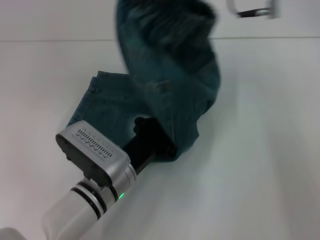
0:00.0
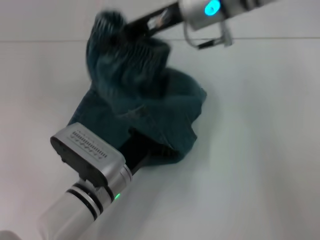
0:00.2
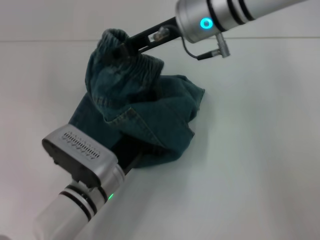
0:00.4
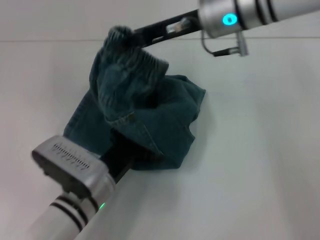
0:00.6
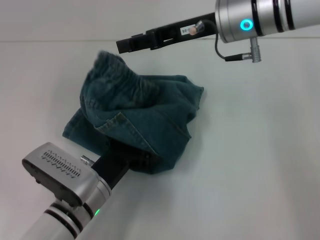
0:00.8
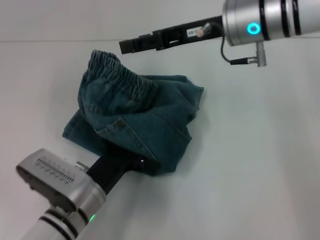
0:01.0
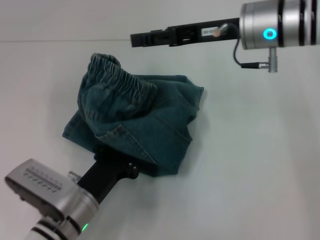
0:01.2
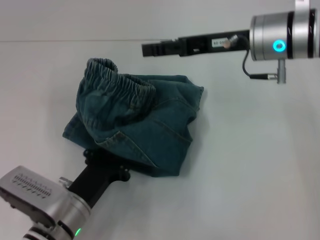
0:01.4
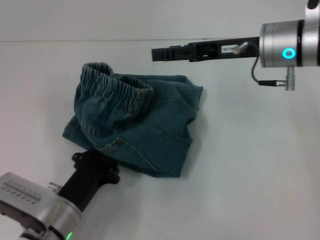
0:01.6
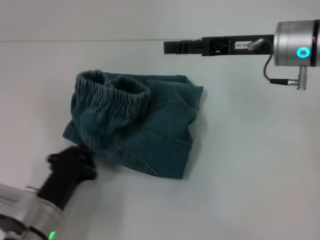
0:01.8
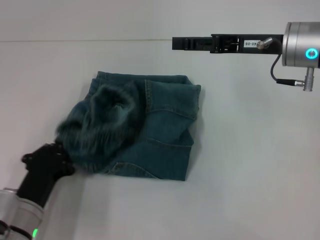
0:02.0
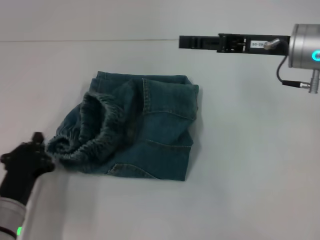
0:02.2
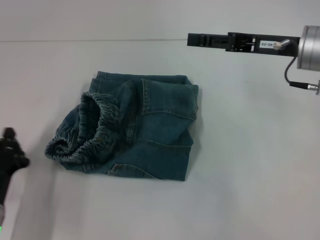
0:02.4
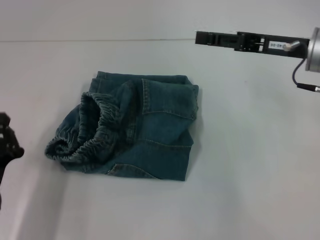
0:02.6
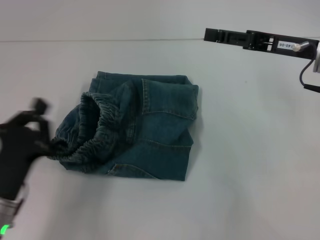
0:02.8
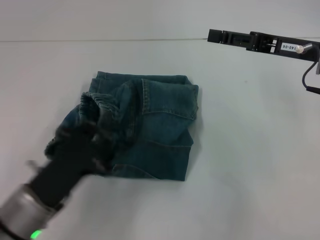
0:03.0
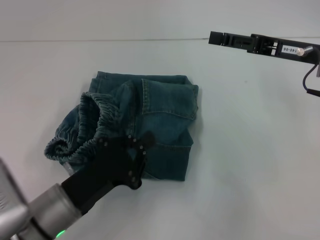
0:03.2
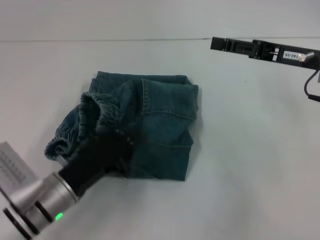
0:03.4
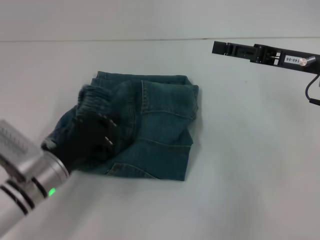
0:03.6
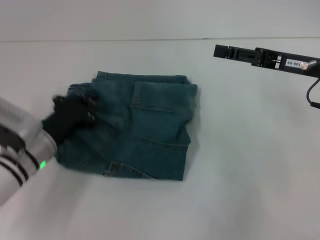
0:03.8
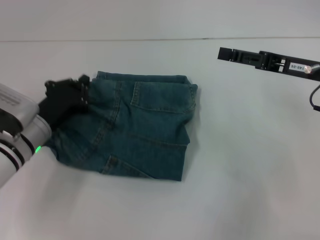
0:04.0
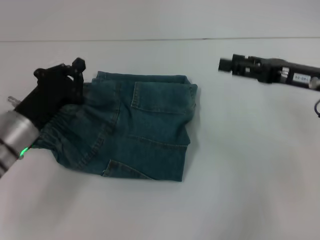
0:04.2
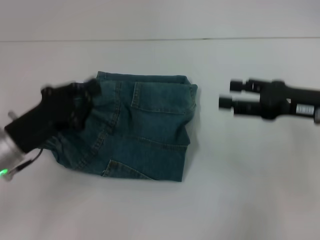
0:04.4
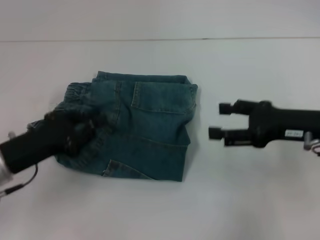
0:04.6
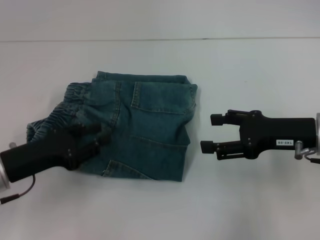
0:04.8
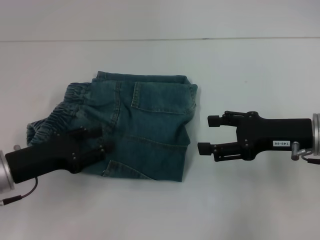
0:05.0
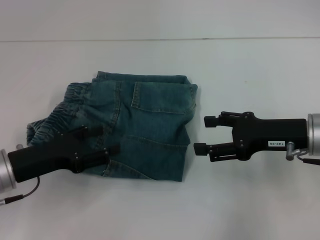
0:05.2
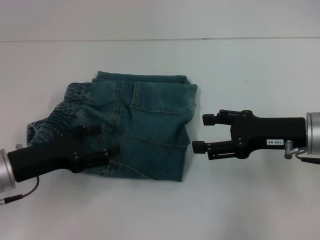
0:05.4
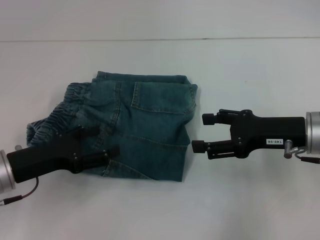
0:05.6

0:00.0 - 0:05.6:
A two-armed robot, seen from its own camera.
Step, 0:00.8 - 0:02.0: Fold to the left with your right hand.
Step, 0:02.4 - 0:04.6: Adjust the pants with your left hand.
0:00.0 - 0:01.4: The right gripper moves downward, about 10 cm, and opens up. The left gripper heads to the left, covering about 5 cm.
0:01.4 - 0:02.8: The right gripper moves to the right, approximately 10 cm, while the left gripper goes approximately 10 cm to the left.
0:02.8 - 0:04.2: The left gripper heads forward, covering approximately 10 cm.
0:04.2 - 0:05.6: The left gripper ends up approximately 5 cm from where it was, and opens its fingers, while the right gripper moves approximately 5 cm.

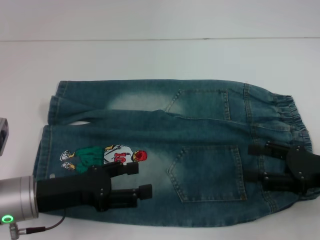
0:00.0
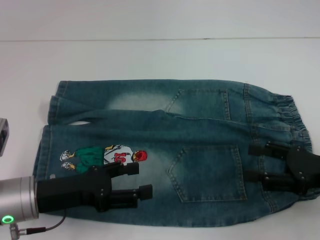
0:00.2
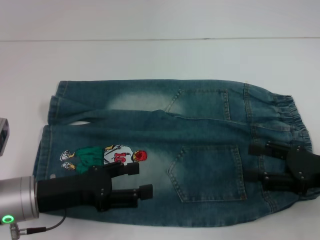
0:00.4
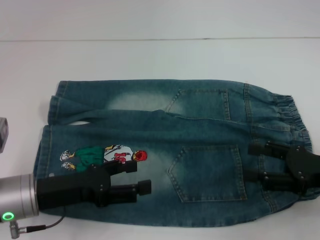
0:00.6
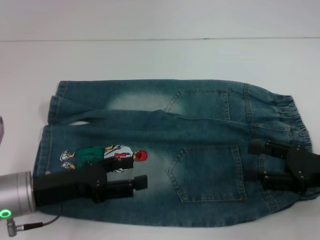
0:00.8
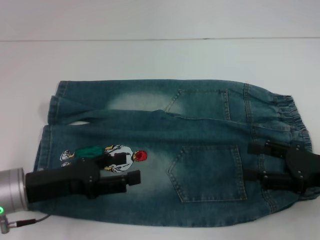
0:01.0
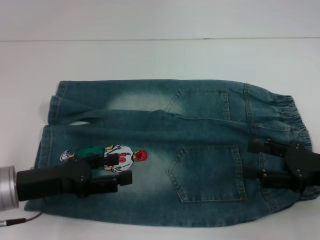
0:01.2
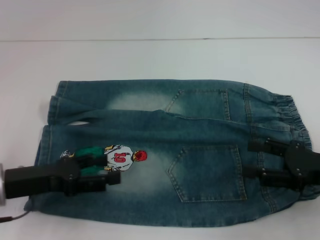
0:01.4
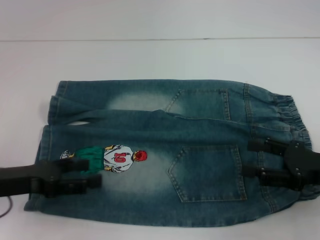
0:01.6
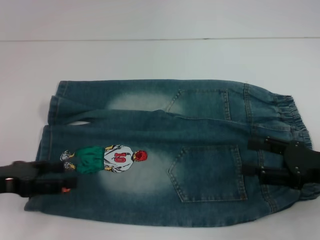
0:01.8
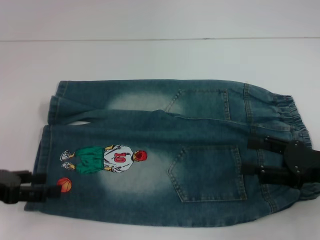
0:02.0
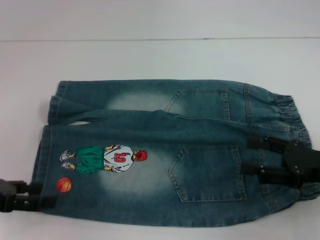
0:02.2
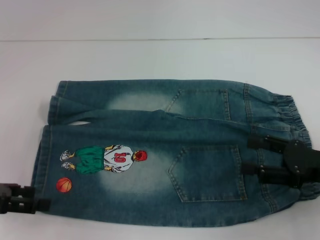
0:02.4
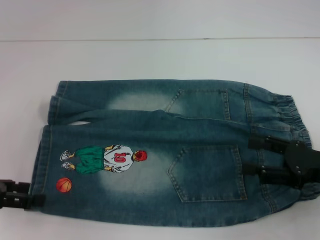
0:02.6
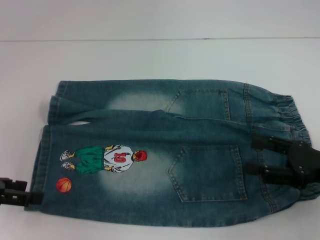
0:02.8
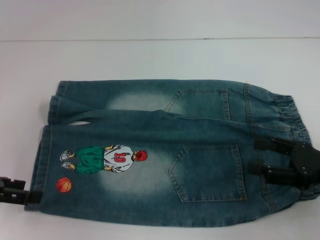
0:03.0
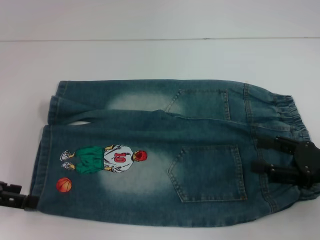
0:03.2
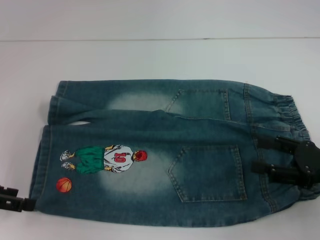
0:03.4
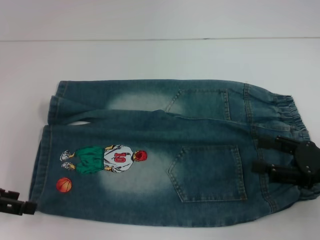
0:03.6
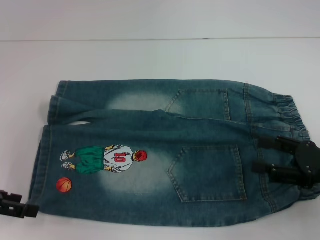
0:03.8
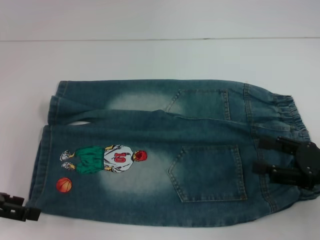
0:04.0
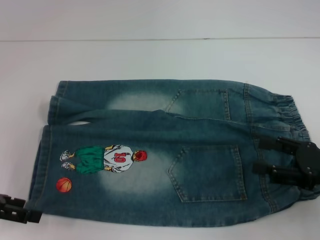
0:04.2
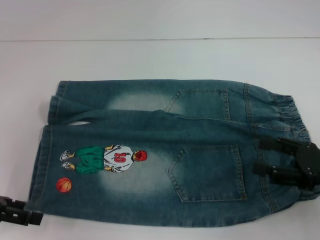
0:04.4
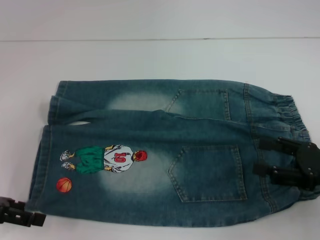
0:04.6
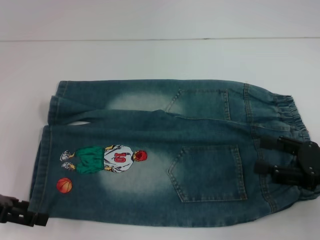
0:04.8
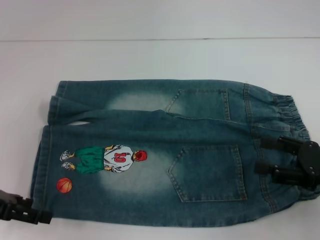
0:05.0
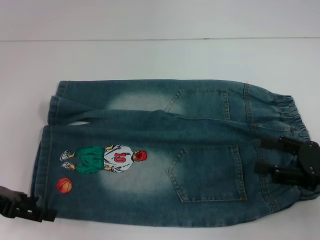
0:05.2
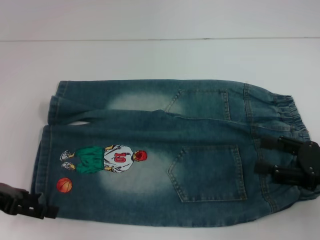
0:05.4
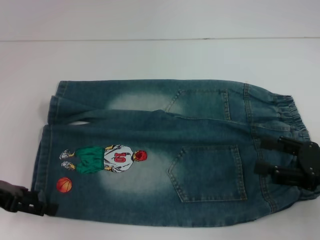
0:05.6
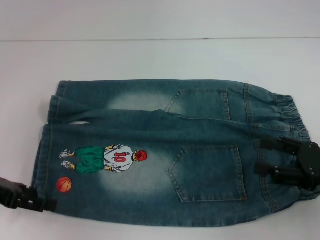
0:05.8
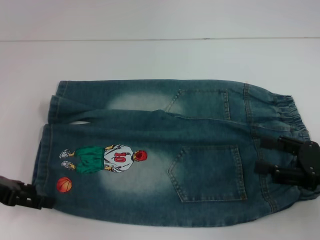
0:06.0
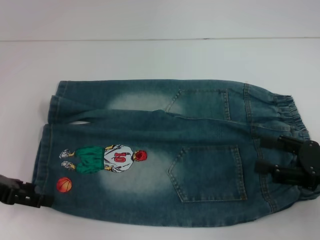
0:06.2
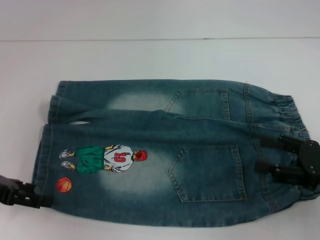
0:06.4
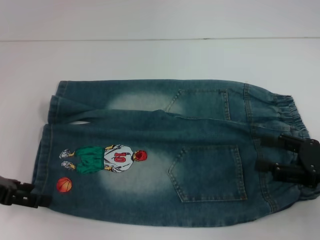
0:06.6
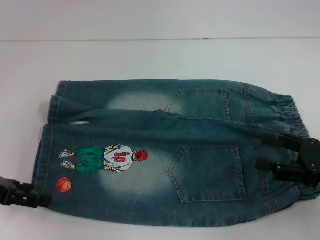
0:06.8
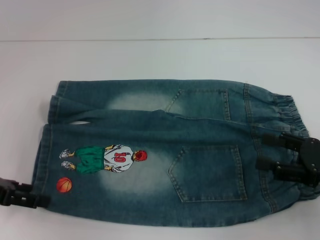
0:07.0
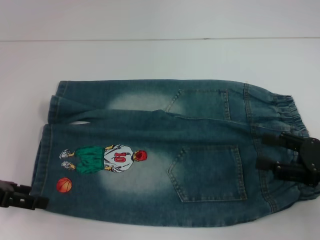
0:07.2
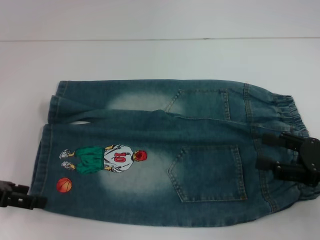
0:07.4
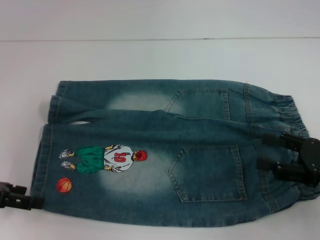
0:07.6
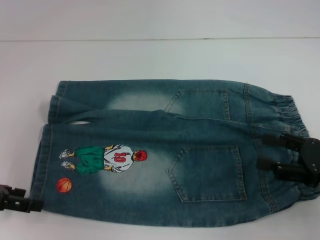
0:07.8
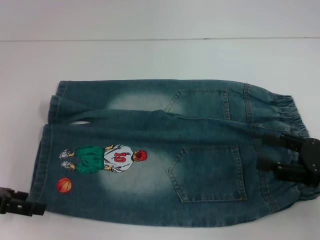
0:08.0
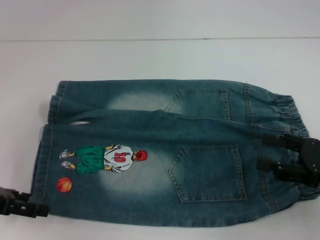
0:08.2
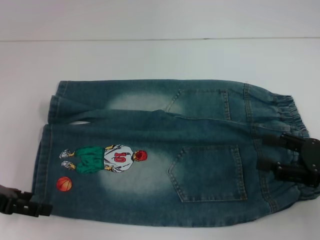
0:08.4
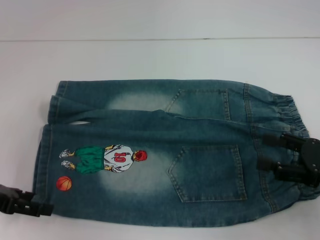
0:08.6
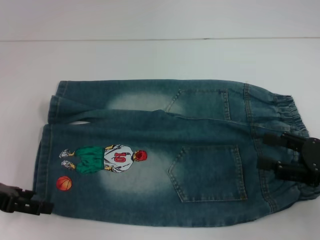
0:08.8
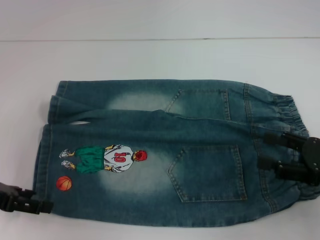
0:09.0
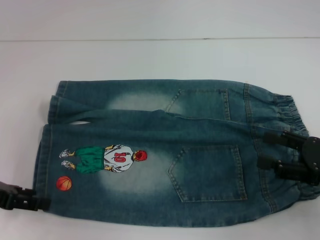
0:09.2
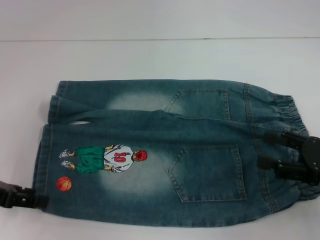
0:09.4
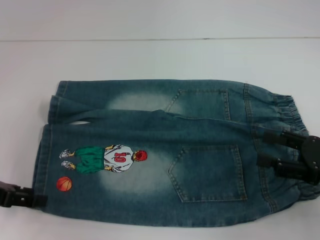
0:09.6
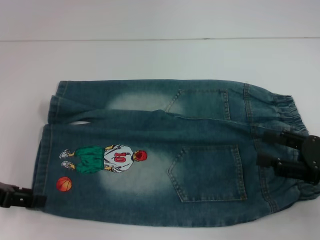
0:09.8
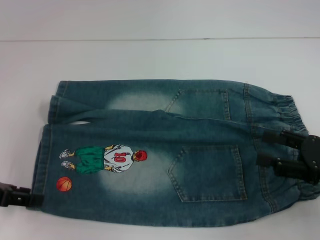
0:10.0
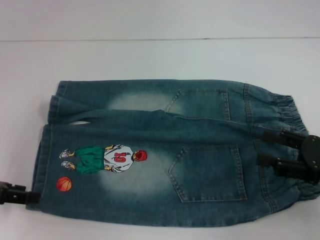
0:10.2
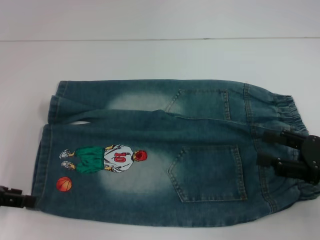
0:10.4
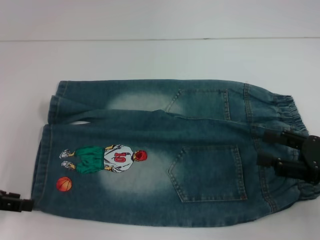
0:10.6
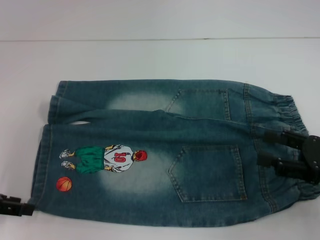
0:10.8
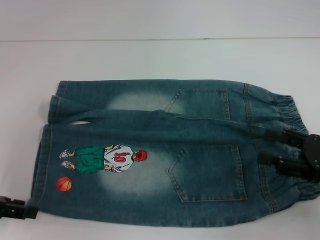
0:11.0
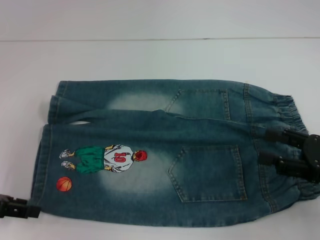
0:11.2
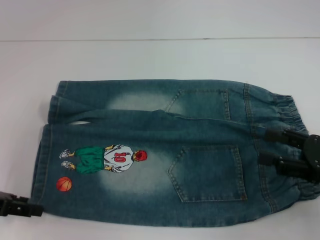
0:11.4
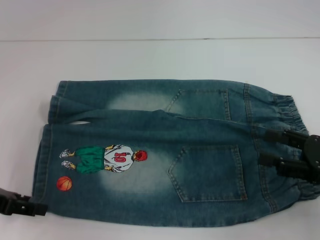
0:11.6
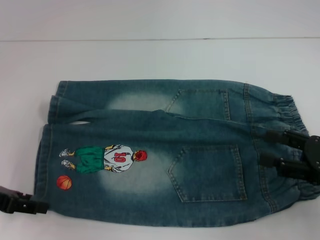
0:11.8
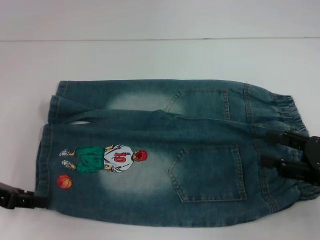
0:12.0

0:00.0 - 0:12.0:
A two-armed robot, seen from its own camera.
0:00.0 - 0:01.6: The left gripper travels to the left by roughly 5 cm.
0:01.6 - 0:03.0: The left gripper moves to the left, roughly 5 cm.
0:03.0 - 0:07.6: The grippers make only small movements.
0:07.6 - 0:09.0: Neither gripper changes place.
0:09.0 - 0:12.0: The grippers move only a little.

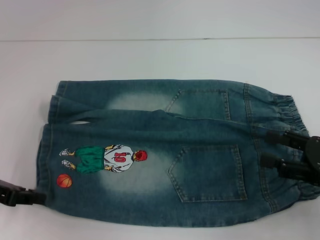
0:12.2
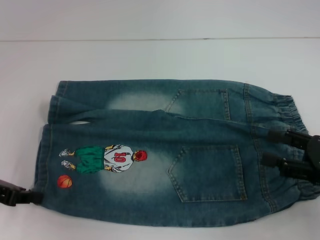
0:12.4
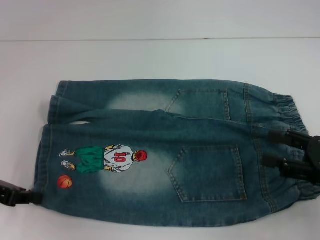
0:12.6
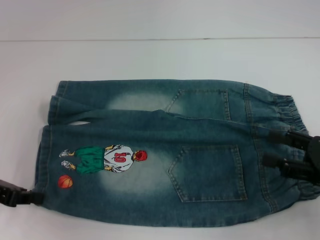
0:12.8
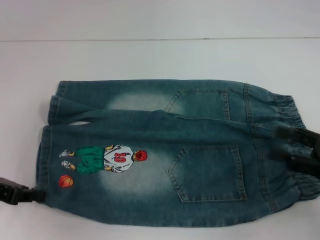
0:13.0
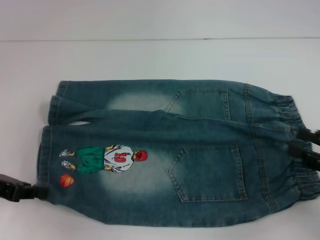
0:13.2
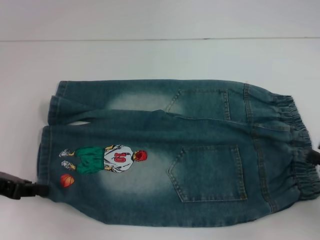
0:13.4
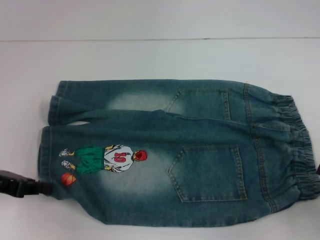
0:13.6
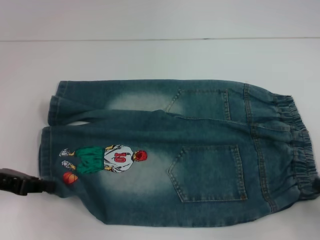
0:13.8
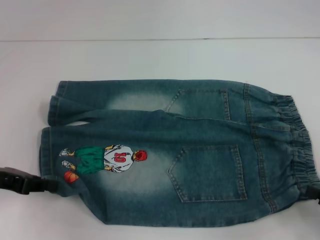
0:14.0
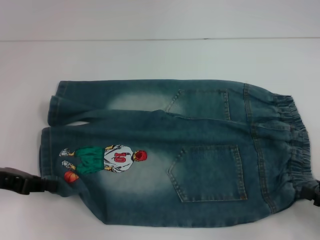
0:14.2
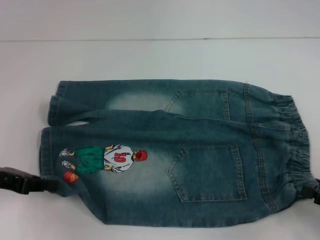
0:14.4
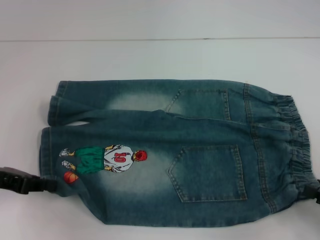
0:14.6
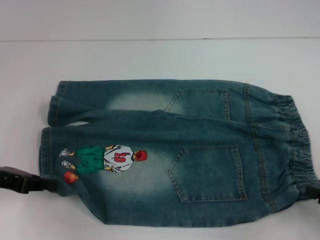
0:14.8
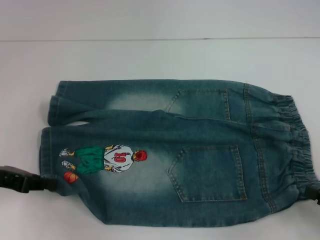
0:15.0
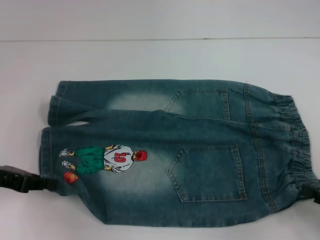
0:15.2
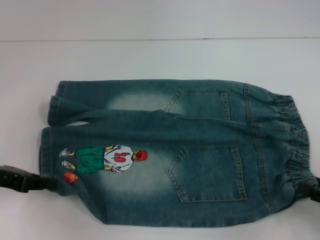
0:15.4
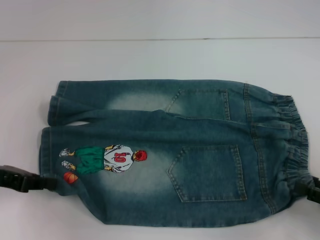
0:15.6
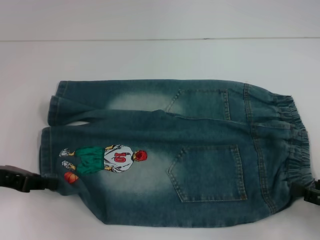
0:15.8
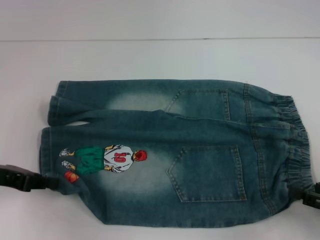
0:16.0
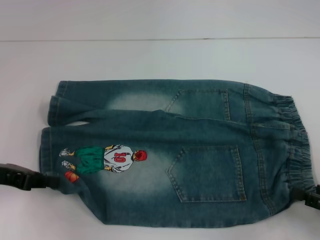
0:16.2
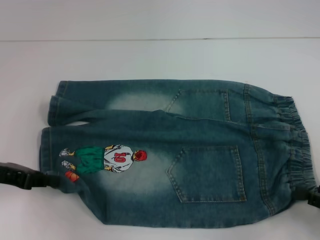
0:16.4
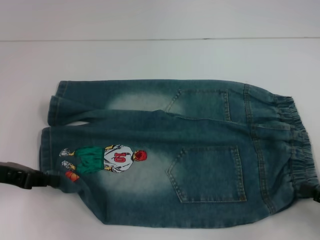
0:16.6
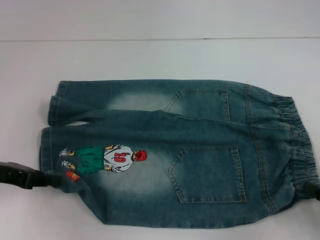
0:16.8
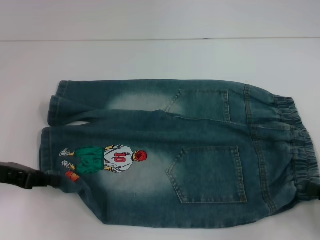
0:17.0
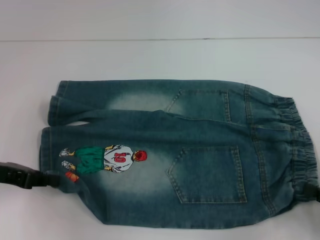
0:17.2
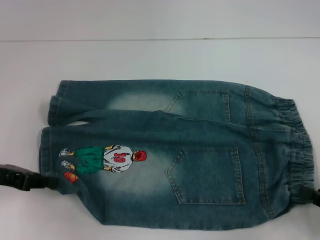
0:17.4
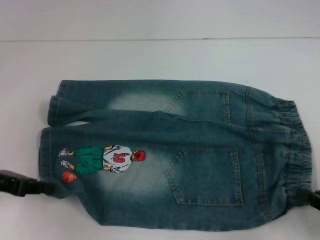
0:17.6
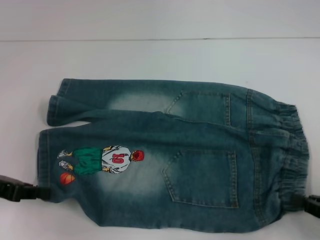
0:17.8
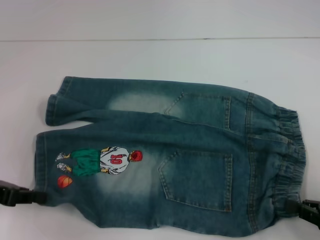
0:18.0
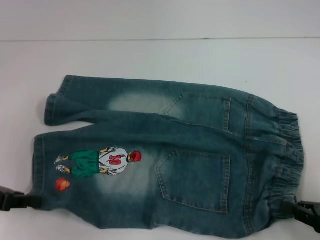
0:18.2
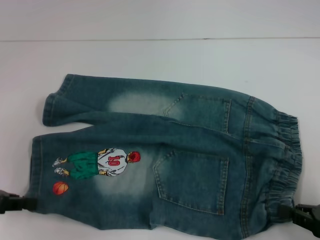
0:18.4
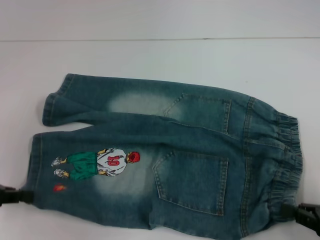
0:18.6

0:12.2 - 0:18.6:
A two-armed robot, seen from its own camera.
Step, 0:12.8 - 0:17.0: Hold the lower right waistband with your right hand.
0:12.2 - 0:13.8: The left gripper closes up, while the right gripper shifts roughly 10 cm backward and to the right.
0:13.8 - 0:15.4: The grippers stay close to where they were, moving slightly.
0:15.4 - 0:17.0: The right gripper closes its fingers.
0:17.0 - 0:18.6: The left gripper shifts by some 5 cm.
